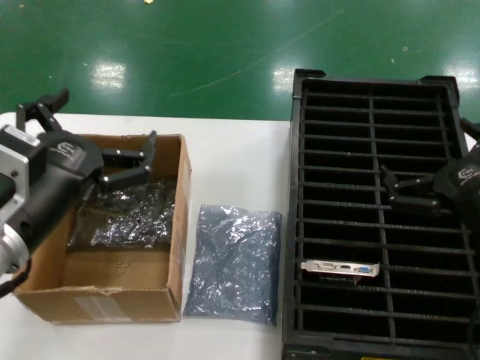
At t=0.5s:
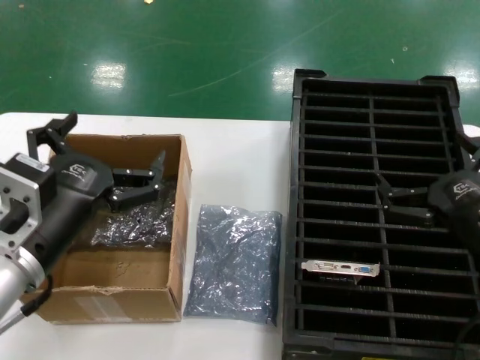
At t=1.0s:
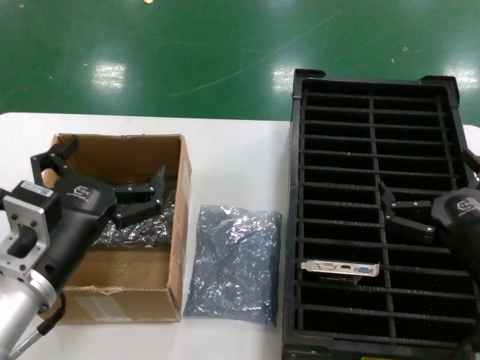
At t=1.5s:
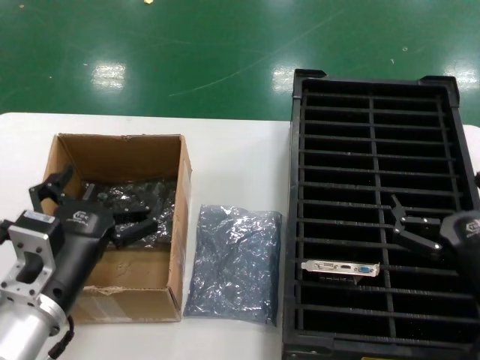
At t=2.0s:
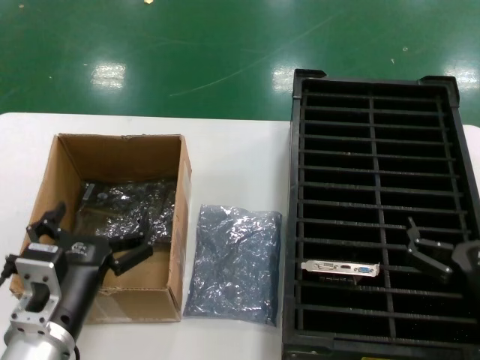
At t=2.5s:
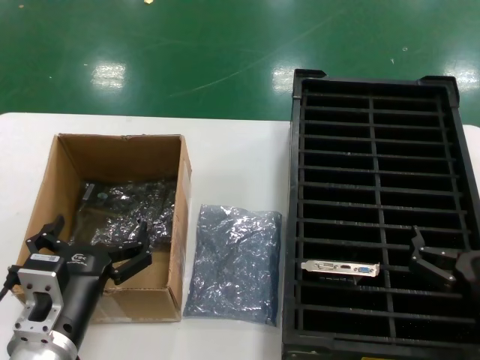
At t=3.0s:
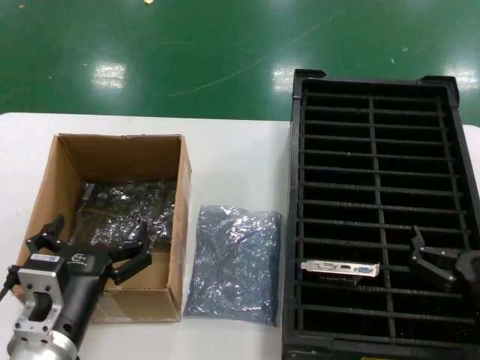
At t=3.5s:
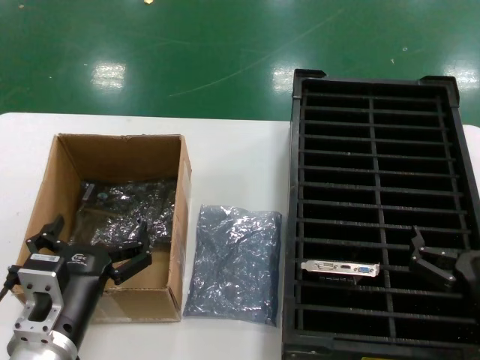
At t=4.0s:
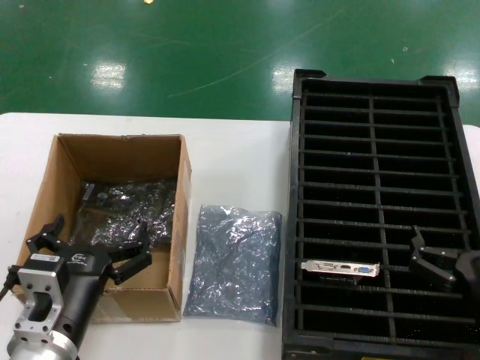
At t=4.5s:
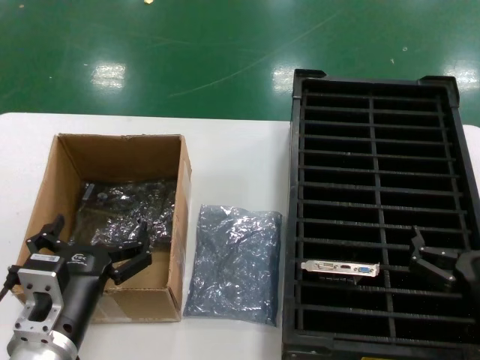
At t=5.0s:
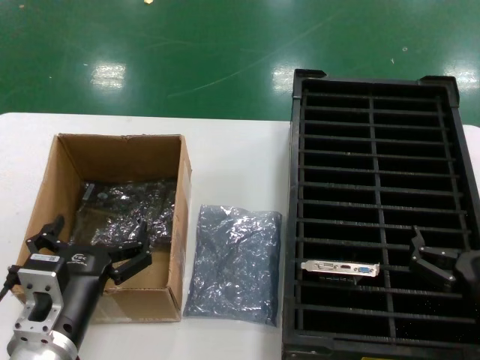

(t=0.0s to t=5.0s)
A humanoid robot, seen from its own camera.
Task of the whole recording: take out graphics card from box remove packaging put into black container.
t=0.0s - t=2.5s: The left hand heads downward, covering roughly 15 cm. Meanwhile the right hand heads downward and backward, covering some 15 cm.
t=2.5s - t=5.0s: Neither hand changes place.
